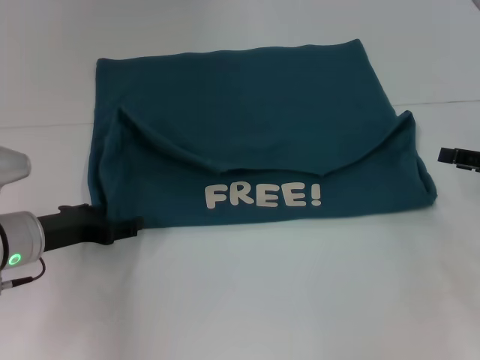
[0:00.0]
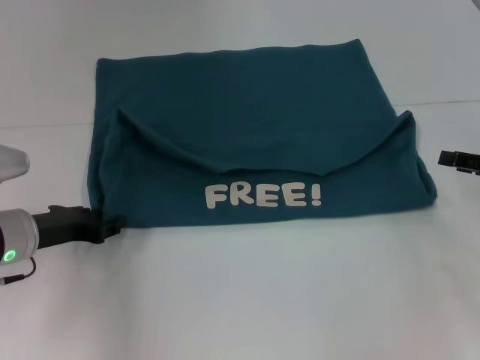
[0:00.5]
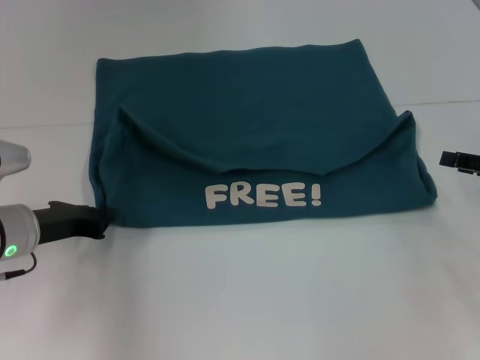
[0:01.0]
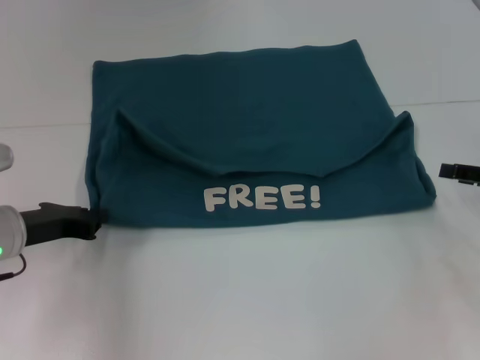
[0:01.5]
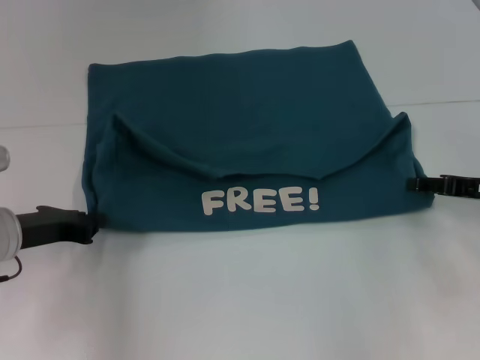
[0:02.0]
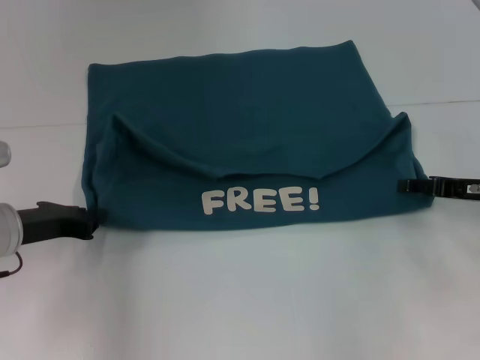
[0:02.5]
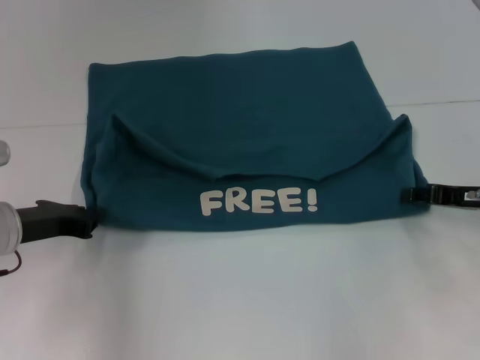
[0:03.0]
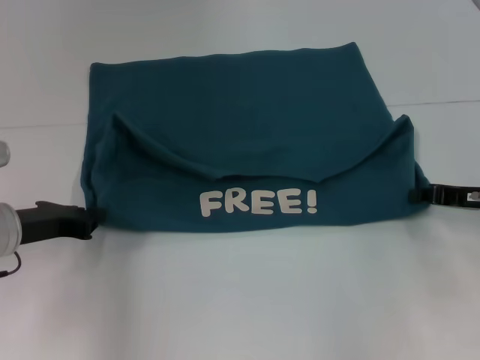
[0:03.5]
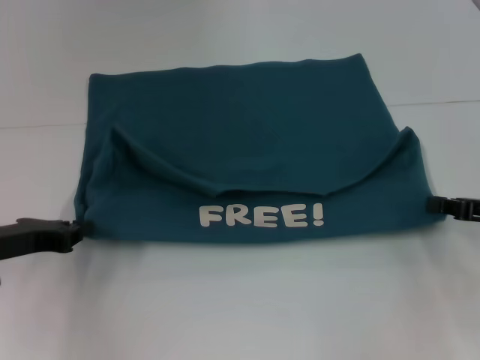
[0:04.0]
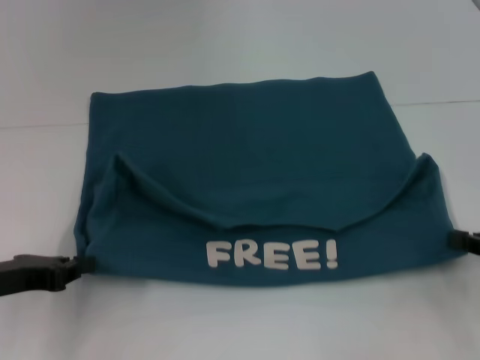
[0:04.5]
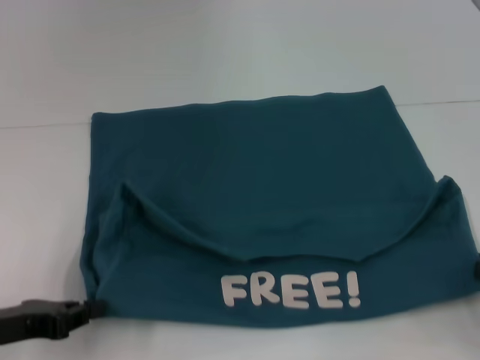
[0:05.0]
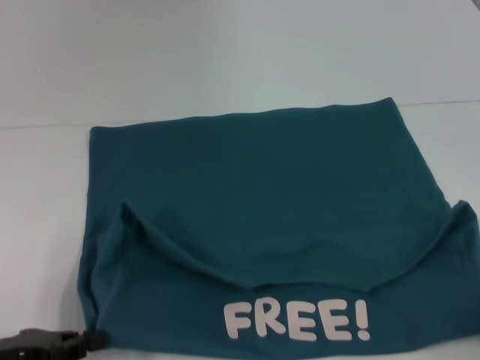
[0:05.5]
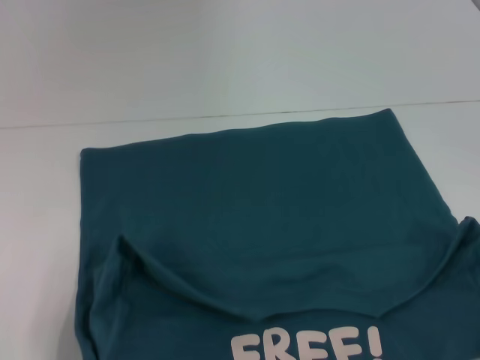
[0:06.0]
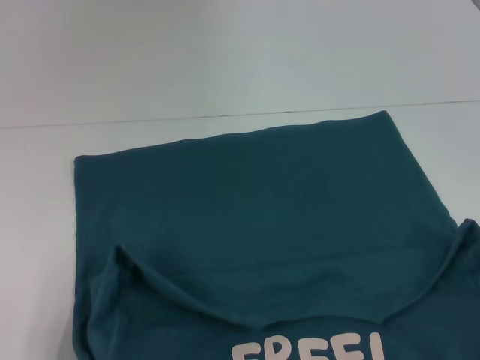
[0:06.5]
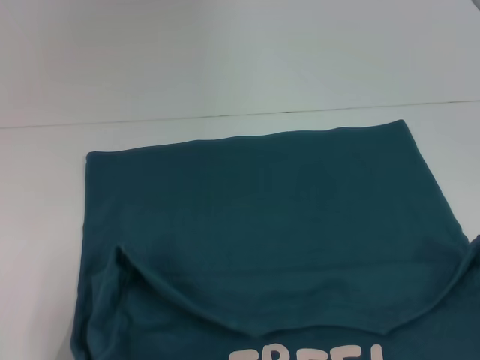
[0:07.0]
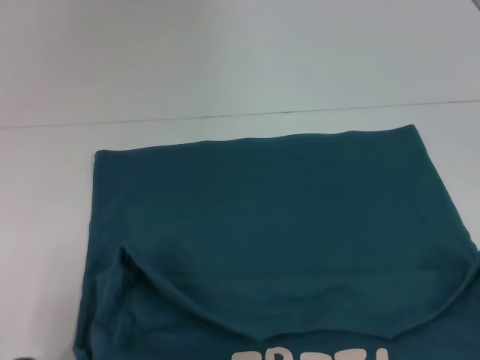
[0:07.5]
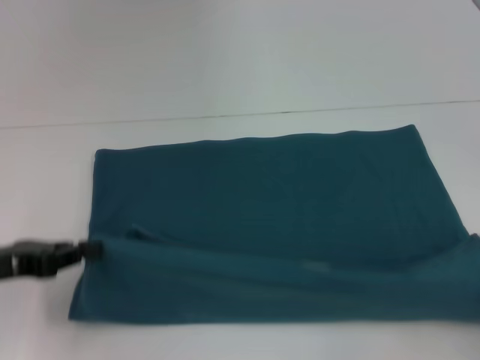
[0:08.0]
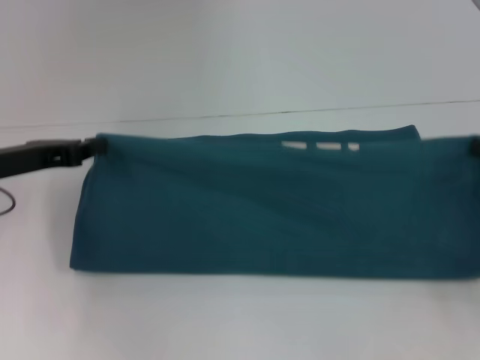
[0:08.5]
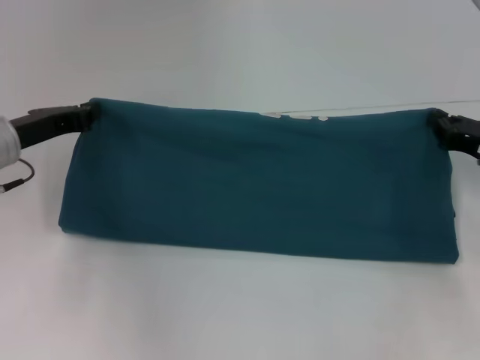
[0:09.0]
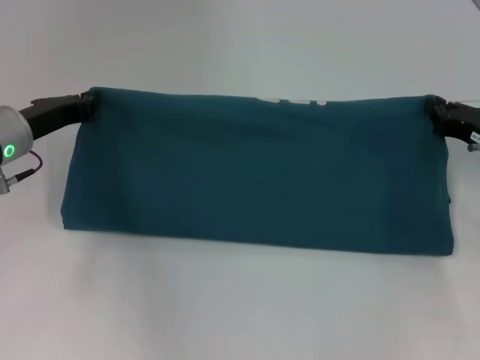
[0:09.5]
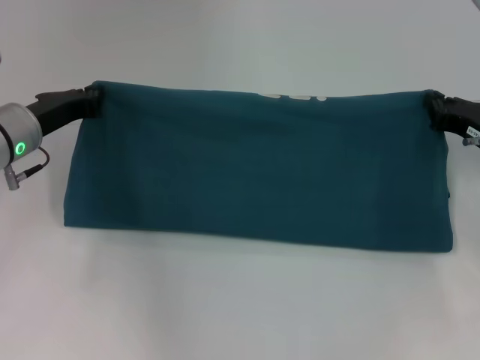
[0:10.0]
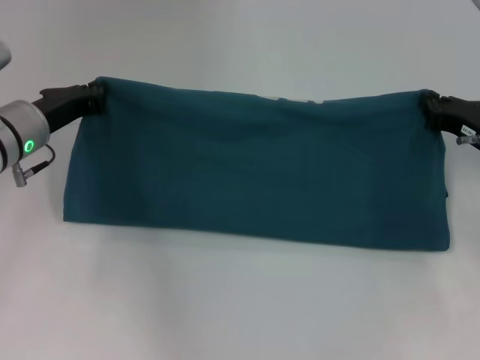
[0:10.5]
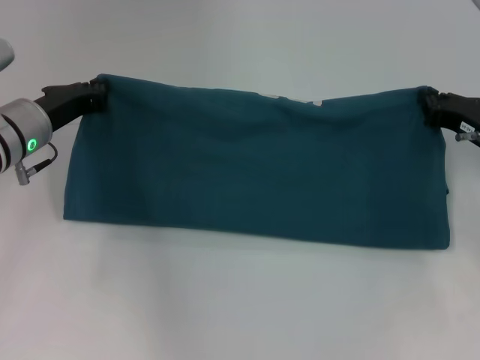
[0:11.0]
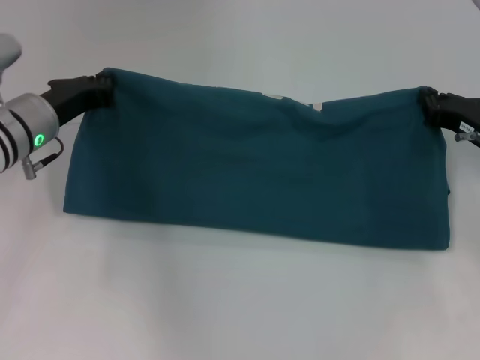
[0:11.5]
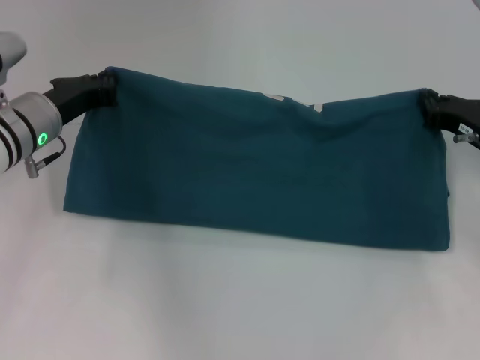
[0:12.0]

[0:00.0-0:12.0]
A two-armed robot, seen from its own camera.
Step, 0.0 to 6.5 s: Pull the clothes with your left hand.
Step, 0.0 to 6.5 s: Pull the clothes with your right hand.
0.0 to 2.0 s: The left gripper closes up.
2.0 to 4.0 s: The right gripper closes.
4.0 to 6.0 s: Both grippers travel together backward, roughly 15 cm.
6.0 to 8.0 s: The left gripper moves forward, about 10 cm.
8.0 to 10.0 s: The left gripper shifts about 15 cm forward and to the right, while the right gripper moves forward and to the left, some 20 cm.
10.0 to 12.0 s: There are only small adjustments of the grippers.

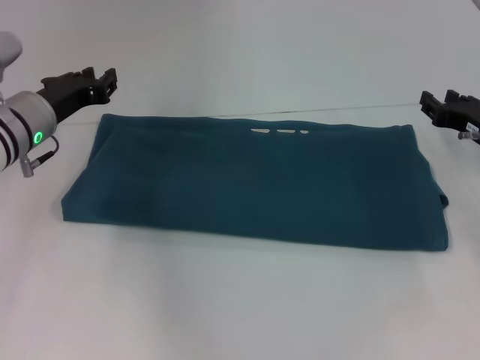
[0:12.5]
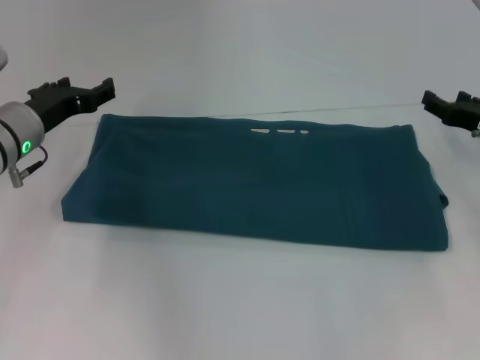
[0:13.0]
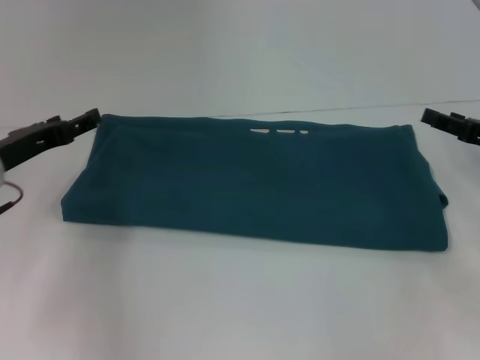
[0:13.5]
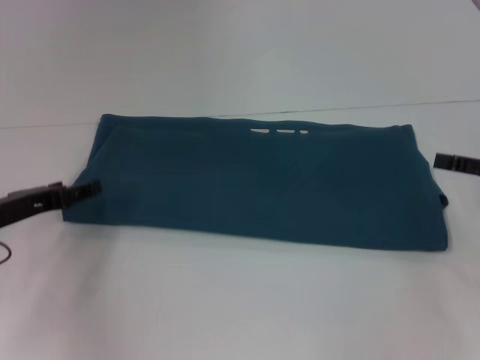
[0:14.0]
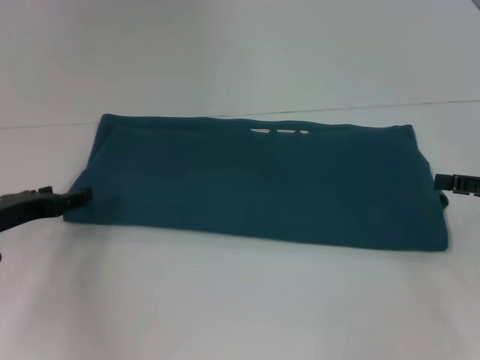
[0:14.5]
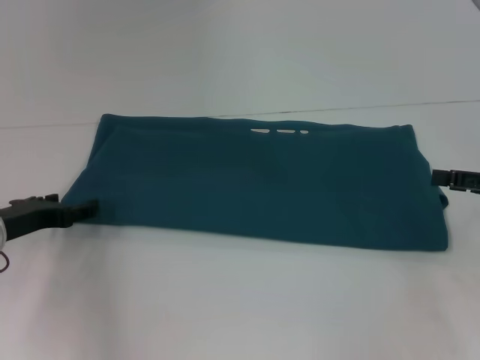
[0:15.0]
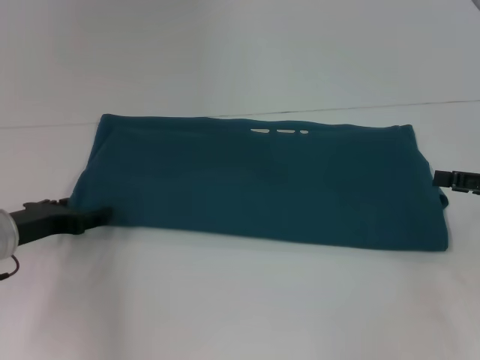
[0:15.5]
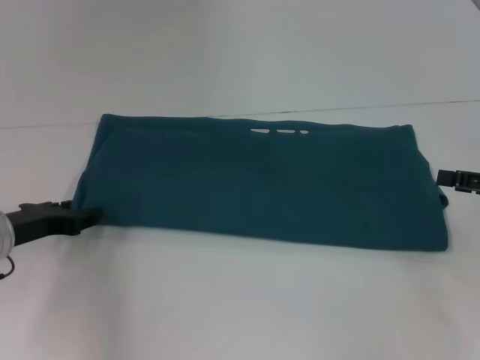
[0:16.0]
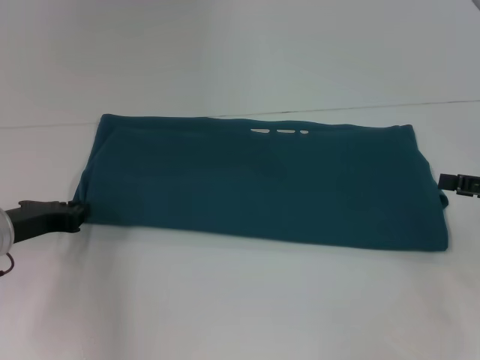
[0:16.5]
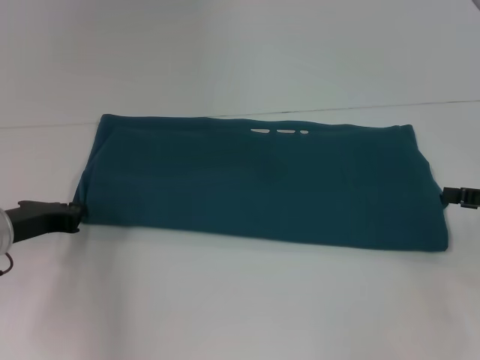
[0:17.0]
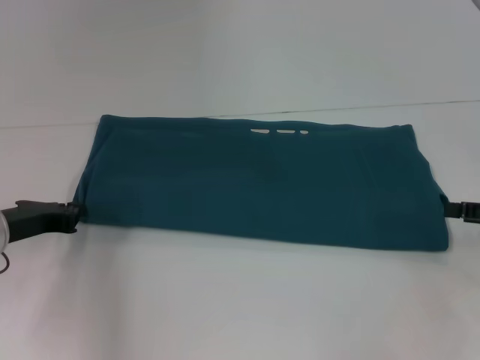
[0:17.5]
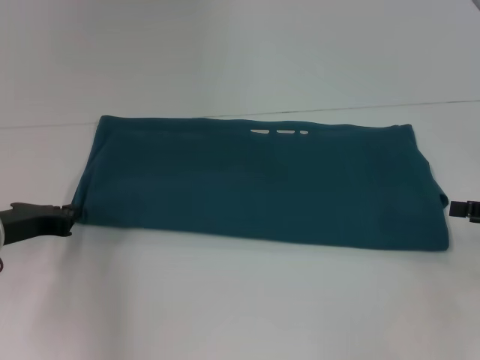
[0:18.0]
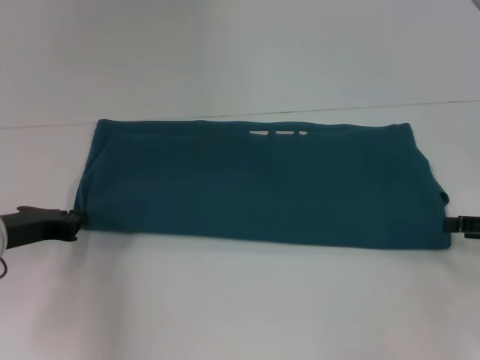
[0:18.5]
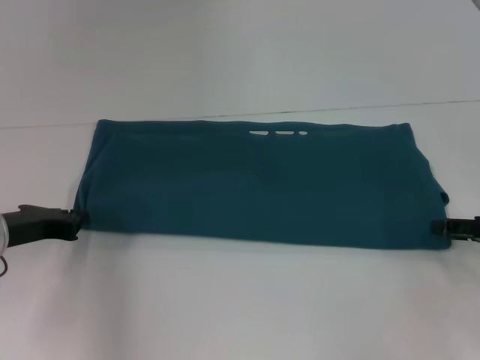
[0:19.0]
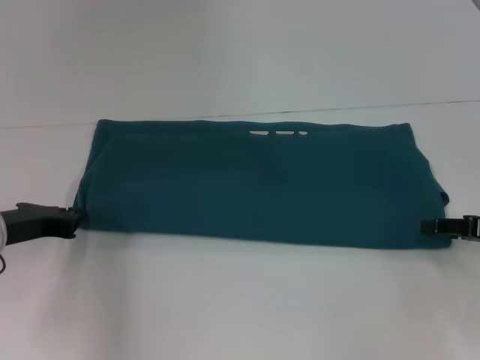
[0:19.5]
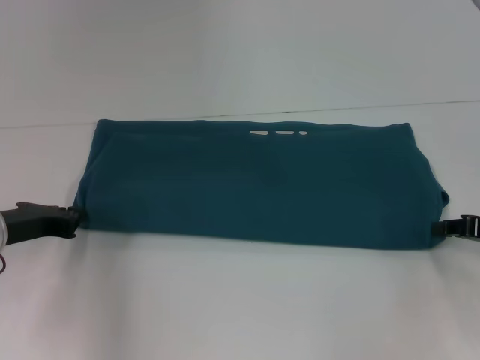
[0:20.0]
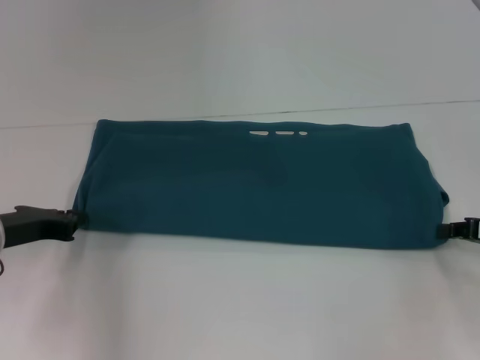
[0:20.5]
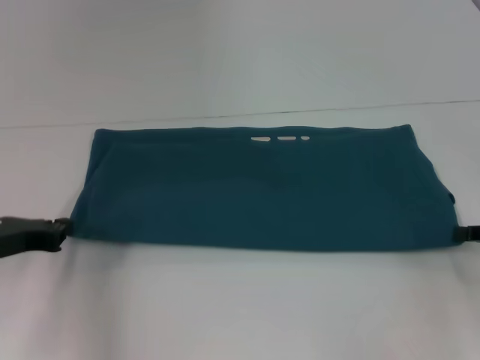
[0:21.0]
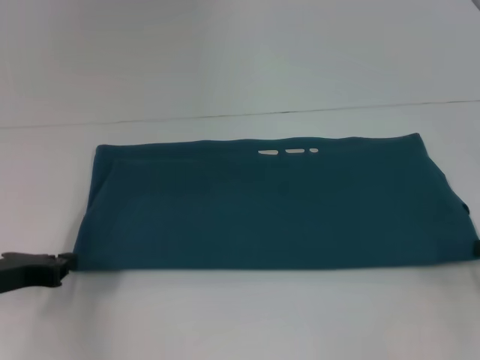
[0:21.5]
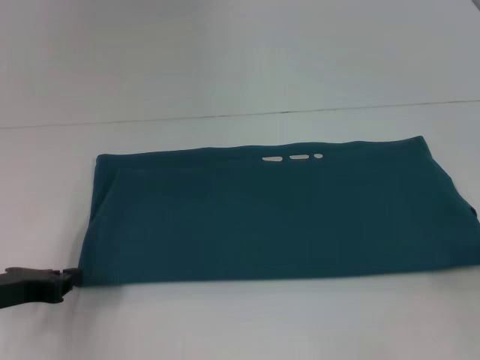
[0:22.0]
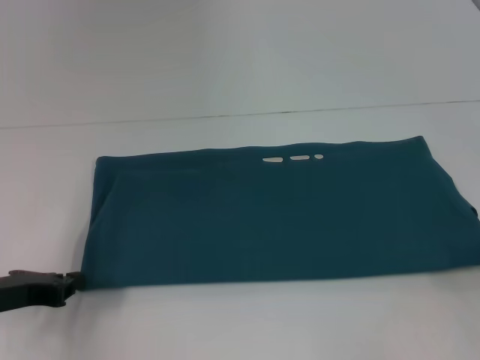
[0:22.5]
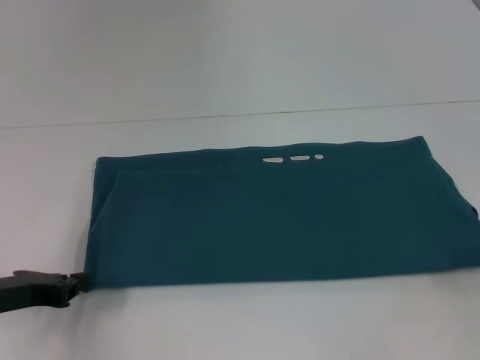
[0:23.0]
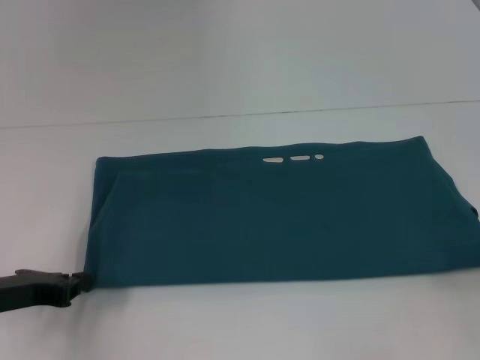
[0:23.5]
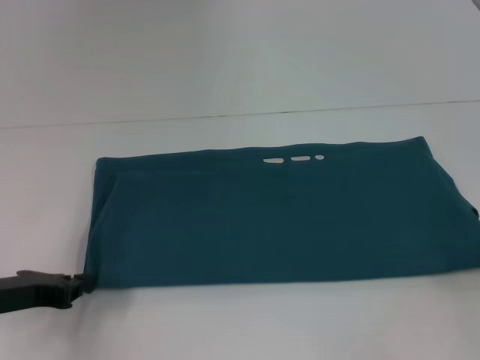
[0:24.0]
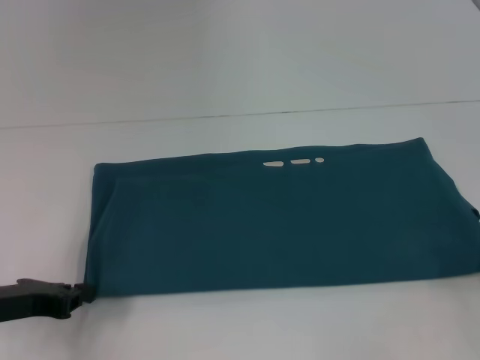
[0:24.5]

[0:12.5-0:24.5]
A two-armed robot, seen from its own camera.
12.5 to 14.5 s: The right gripper goes approximately 10 cm backward and to the right, and opens. Meanwhile the left gripper goes some 10 cm backward and to the left, and opens.
14.5 to 16.5 s: The left gripper closes its fingers.
16.5 to 18.5 s: The left gripper closes its fingers.
20.5 to 22.5 s: The right gripper moves about 5 cm; the left gripper is displaced backward by some 5 cm.
22.5 to 24.5 s: Neither gripper changes place.

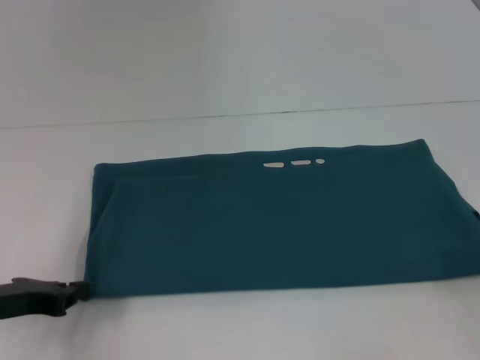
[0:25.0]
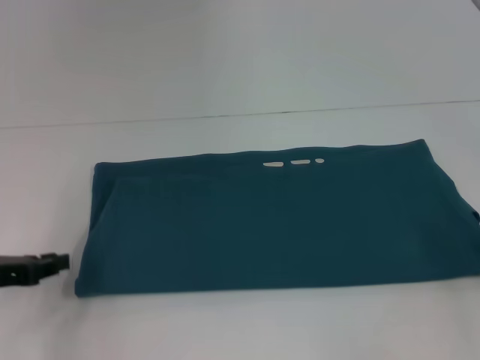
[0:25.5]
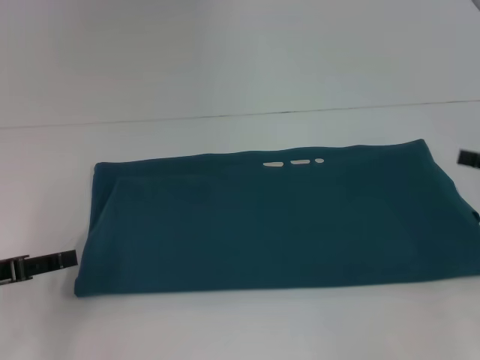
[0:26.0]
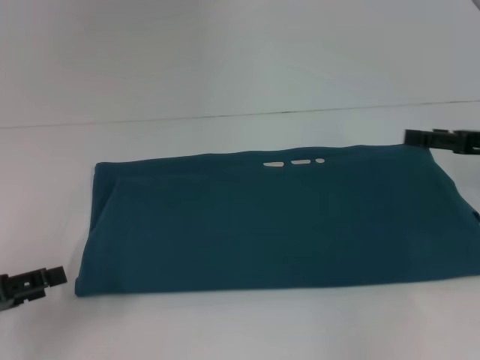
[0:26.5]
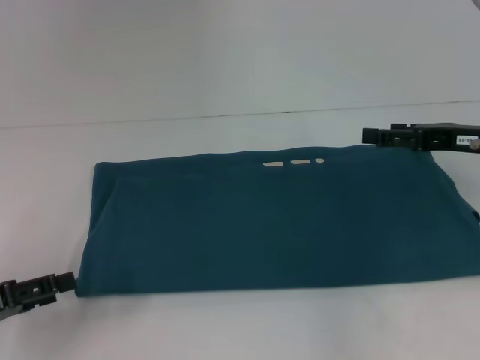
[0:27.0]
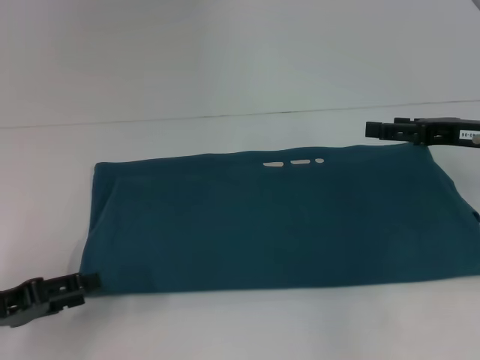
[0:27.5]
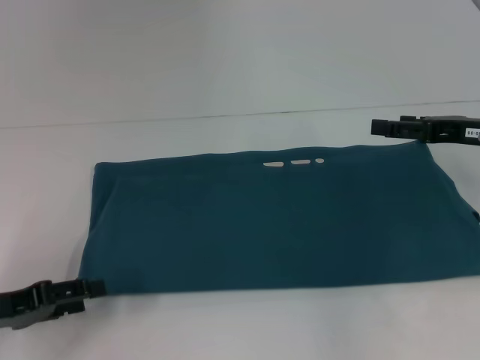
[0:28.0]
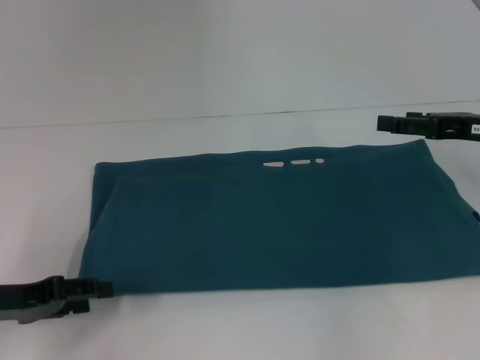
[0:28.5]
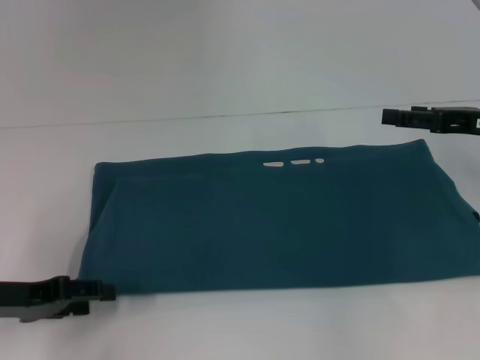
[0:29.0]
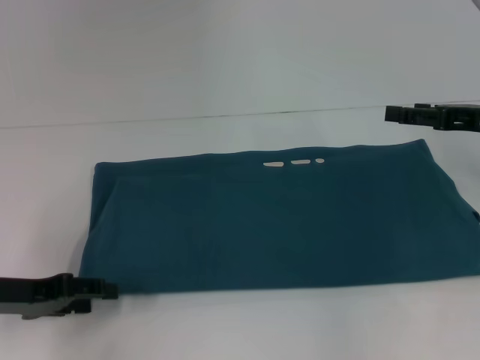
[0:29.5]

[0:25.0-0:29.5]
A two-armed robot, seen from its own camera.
25.0 to 27.0 s: The right gripper is displaced forward, to the left and upward by roughly 15 cm, and opens up. Meanwhile the left gripper moves roughly 5 cm, and opens up.
27.0 to 29.5 s: The left gripper moves forward, about 5 cm.
